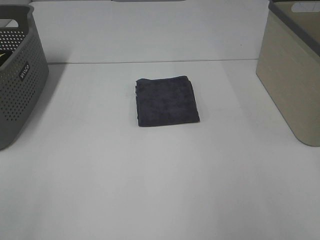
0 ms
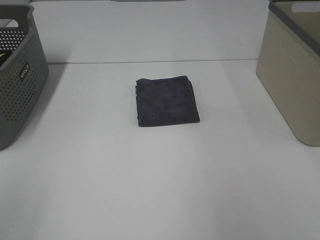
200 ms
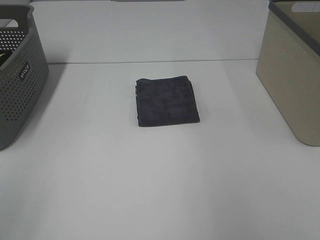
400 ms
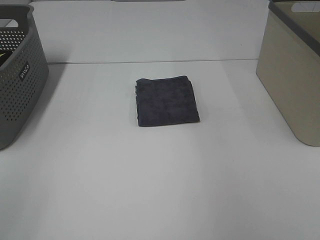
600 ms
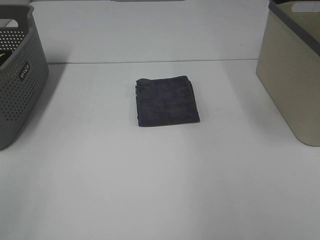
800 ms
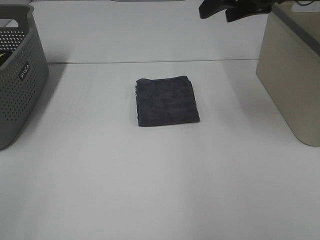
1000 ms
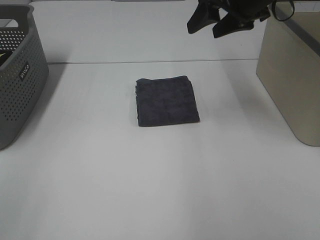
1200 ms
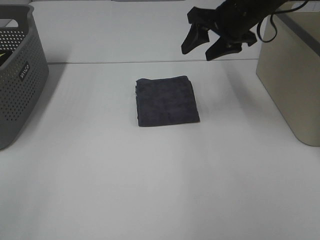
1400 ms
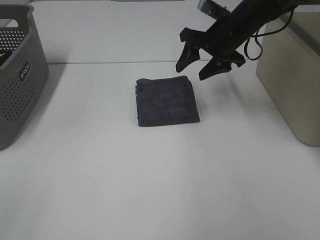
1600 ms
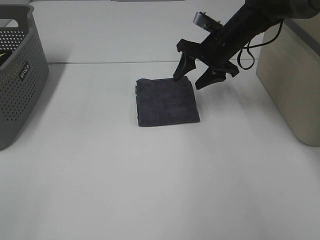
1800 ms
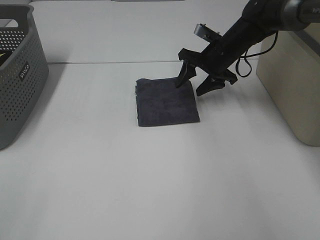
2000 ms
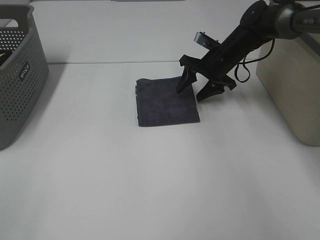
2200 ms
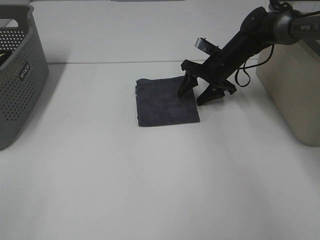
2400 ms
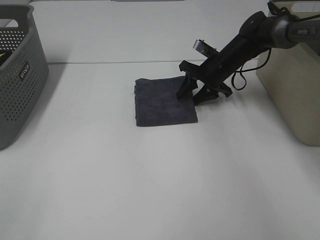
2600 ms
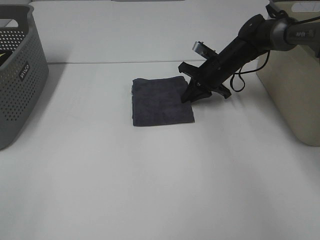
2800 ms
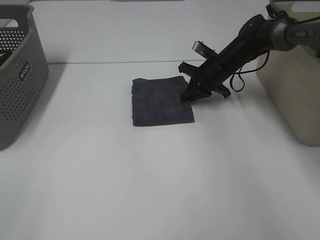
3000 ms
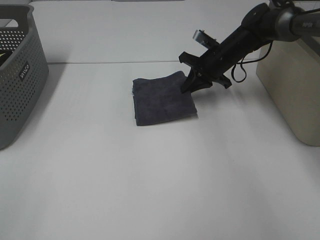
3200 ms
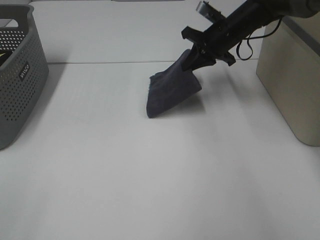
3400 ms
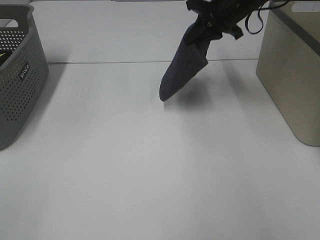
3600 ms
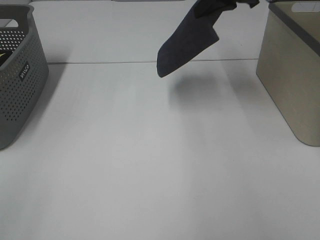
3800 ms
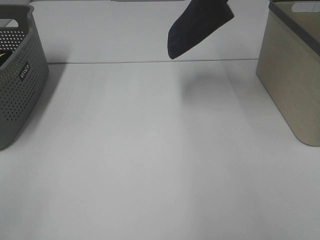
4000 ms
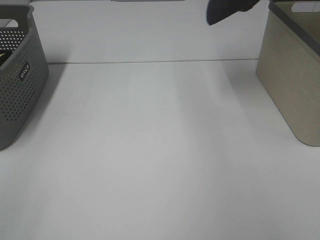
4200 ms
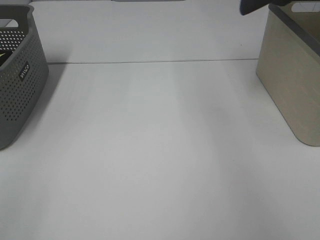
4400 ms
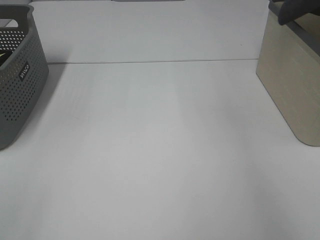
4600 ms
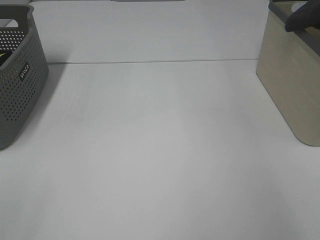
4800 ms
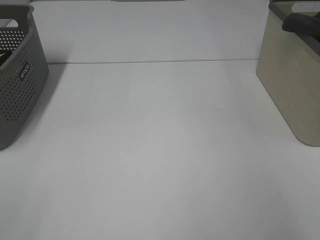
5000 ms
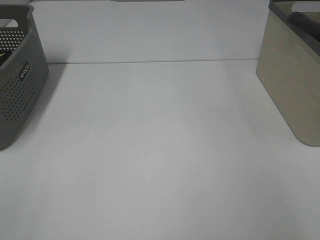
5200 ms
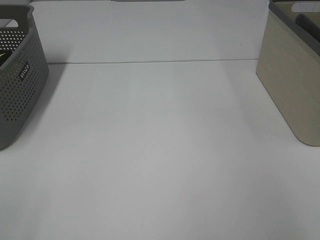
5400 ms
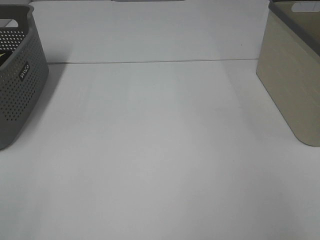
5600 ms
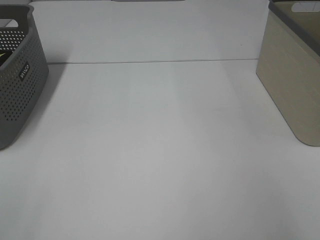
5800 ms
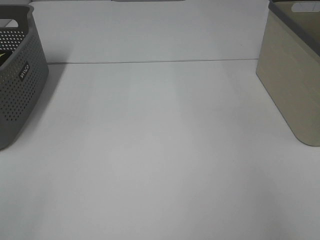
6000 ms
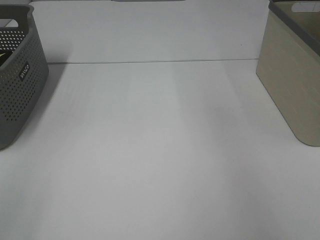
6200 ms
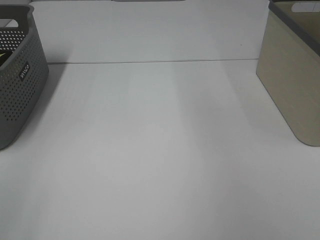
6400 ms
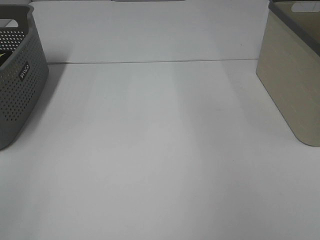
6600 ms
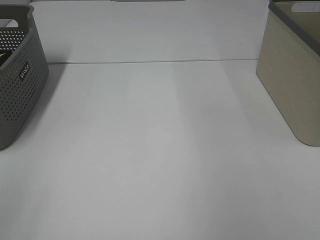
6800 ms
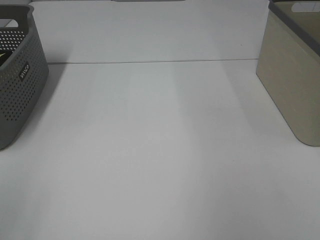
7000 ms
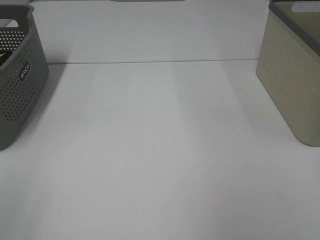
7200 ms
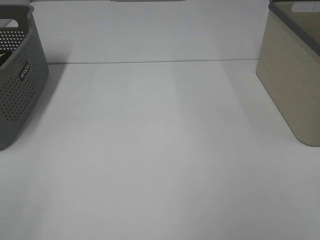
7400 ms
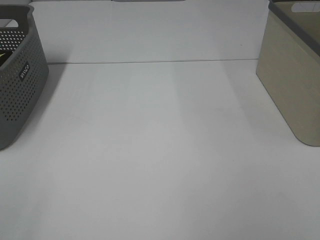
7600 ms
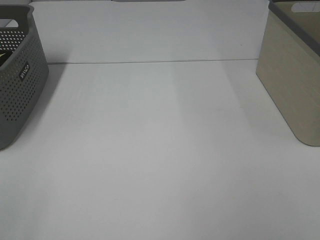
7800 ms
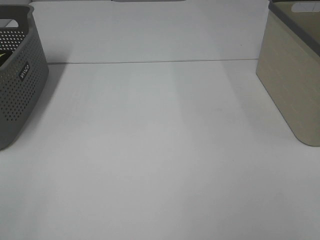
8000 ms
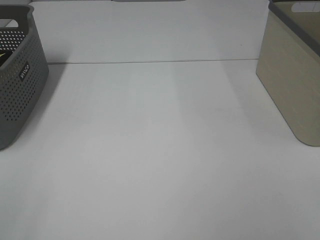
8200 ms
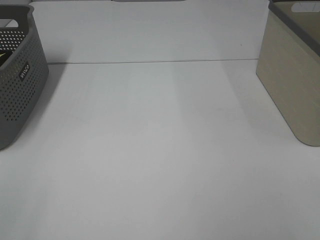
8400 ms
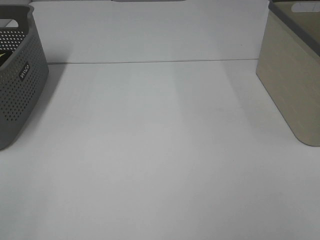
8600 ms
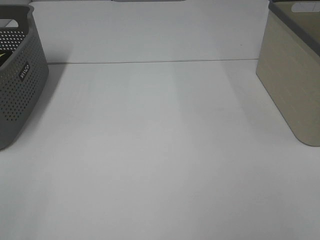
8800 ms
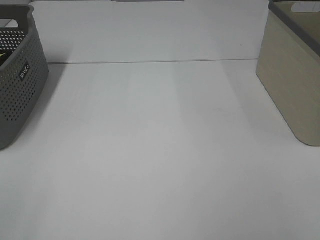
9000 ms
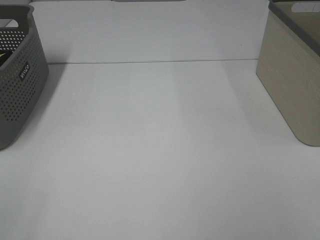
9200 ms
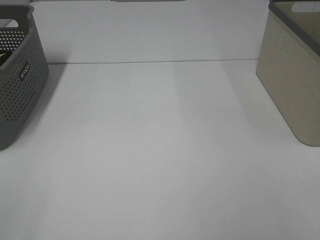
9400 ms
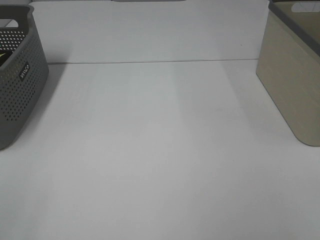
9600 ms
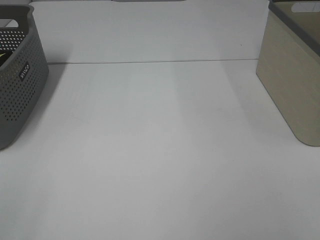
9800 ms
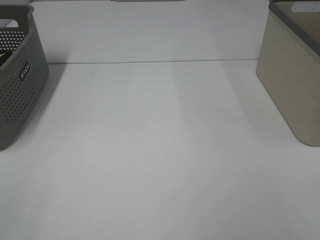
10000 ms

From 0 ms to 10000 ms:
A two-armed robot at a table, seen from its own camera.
Step, from 0 ms to 2800 ms: Right hand: grab the folded grey towel.
Step, from 3000 ms to 5600 ms: Right hand: place the grey towel in right basket.
From 0 ms to 1400 ms: The right gripper is displaced forward and to the left by about 35 cm.
From 1400 ms to 2800 ms: The right gripper travels downward and forward by approximately 15 cm, and closes up.
From 2800 ms to 4200 ms: The right gripper goes approximately 35 cm upward.
From 4200 ms to 5800 ms: The right gripper moves to the right, roughly 15 cm, and opens.
From 8600 ms to 10000 ms: Both grippers stay about where they are.
